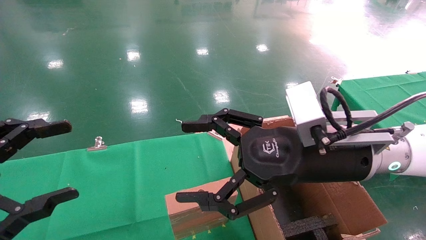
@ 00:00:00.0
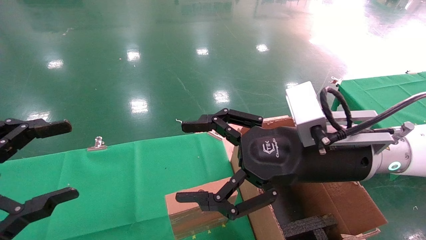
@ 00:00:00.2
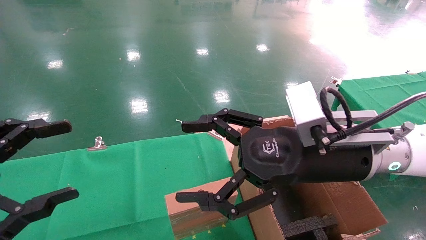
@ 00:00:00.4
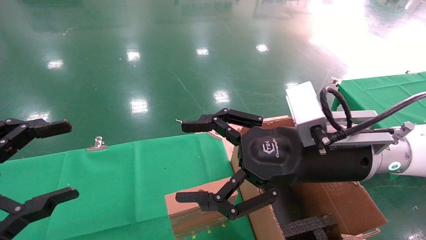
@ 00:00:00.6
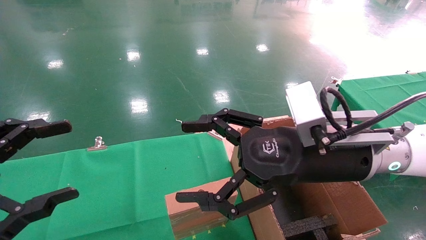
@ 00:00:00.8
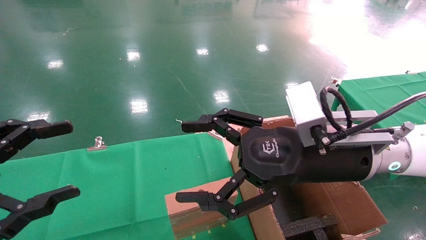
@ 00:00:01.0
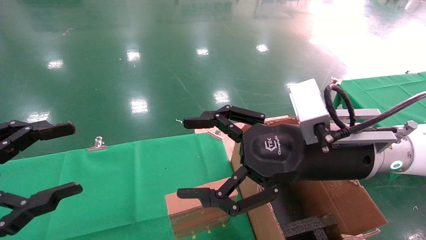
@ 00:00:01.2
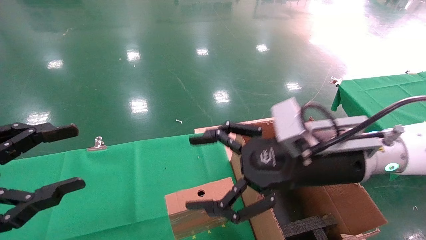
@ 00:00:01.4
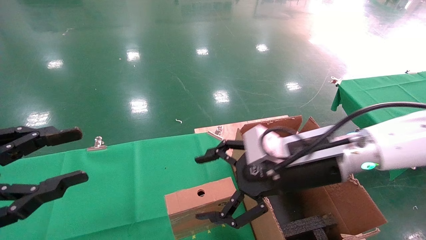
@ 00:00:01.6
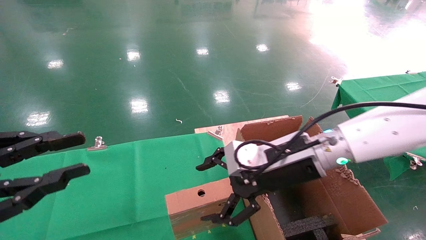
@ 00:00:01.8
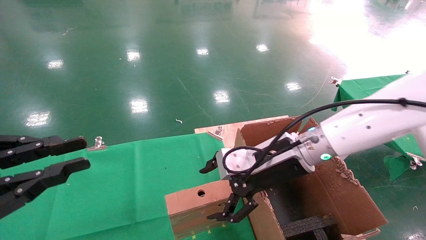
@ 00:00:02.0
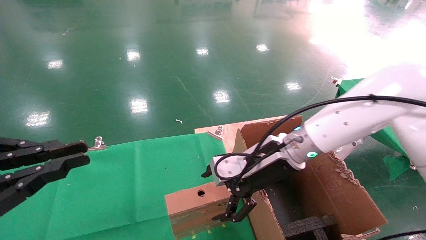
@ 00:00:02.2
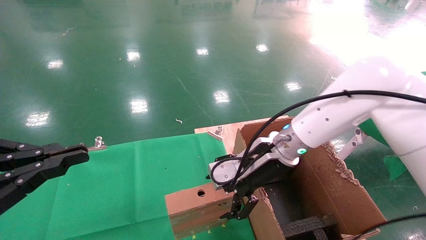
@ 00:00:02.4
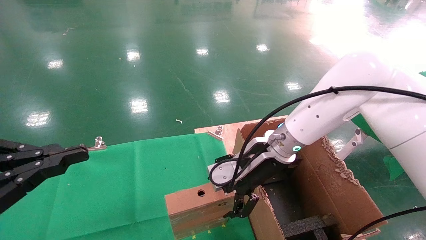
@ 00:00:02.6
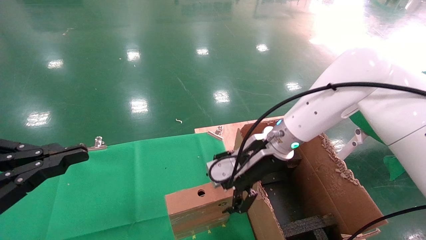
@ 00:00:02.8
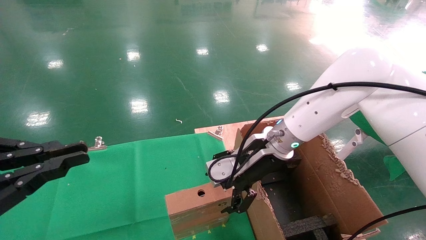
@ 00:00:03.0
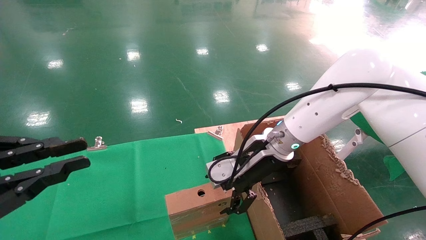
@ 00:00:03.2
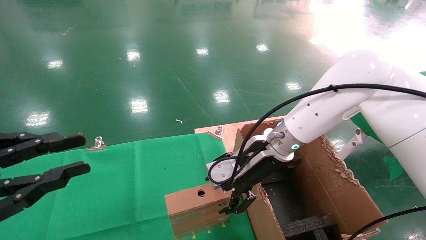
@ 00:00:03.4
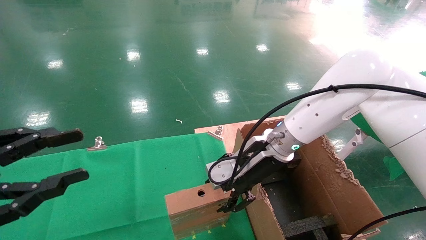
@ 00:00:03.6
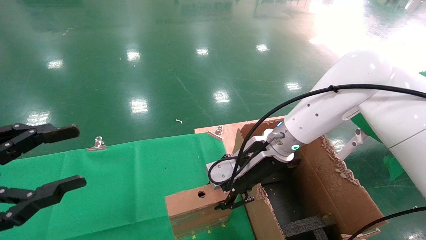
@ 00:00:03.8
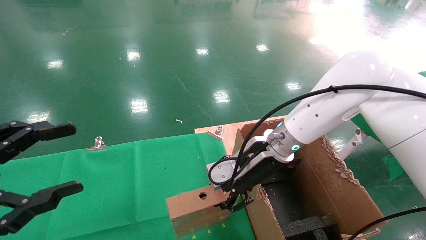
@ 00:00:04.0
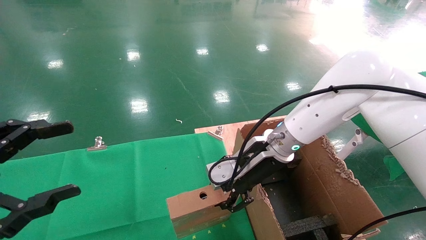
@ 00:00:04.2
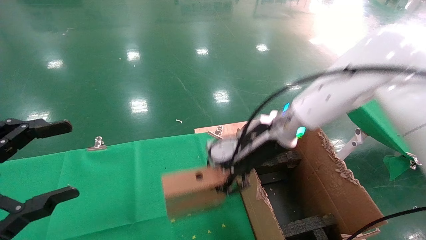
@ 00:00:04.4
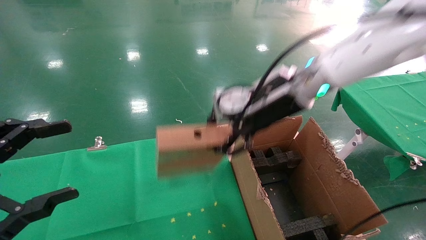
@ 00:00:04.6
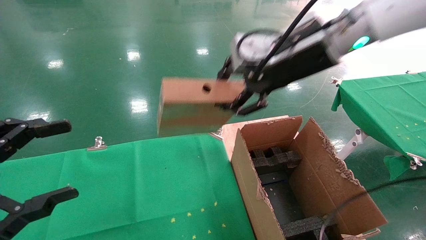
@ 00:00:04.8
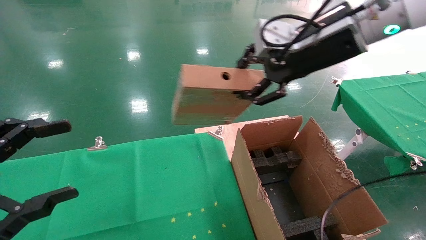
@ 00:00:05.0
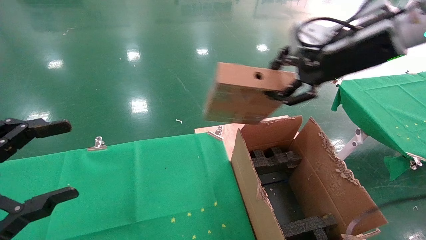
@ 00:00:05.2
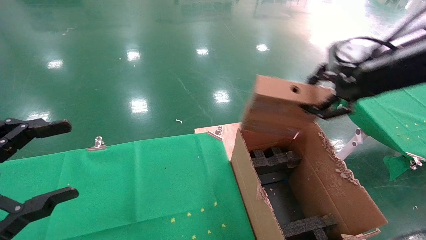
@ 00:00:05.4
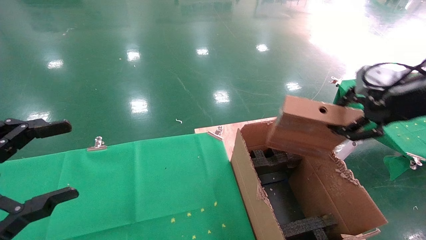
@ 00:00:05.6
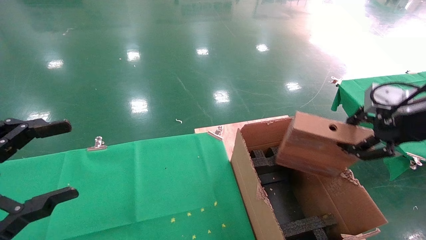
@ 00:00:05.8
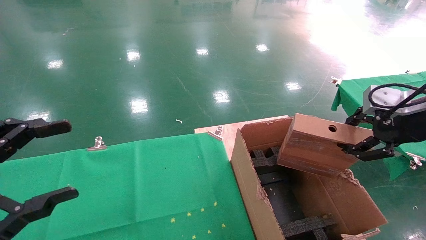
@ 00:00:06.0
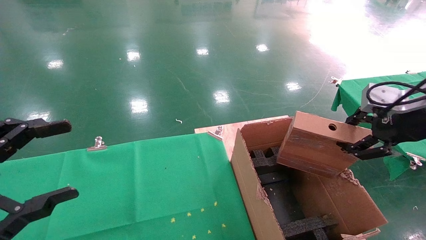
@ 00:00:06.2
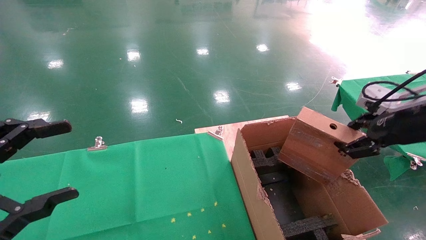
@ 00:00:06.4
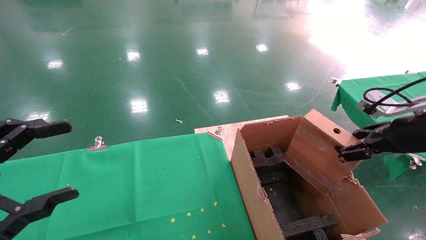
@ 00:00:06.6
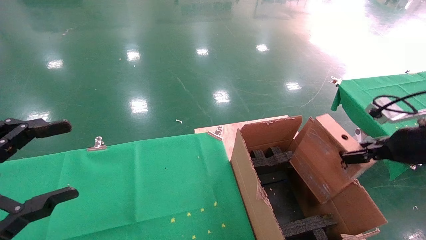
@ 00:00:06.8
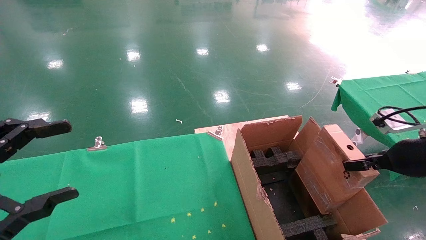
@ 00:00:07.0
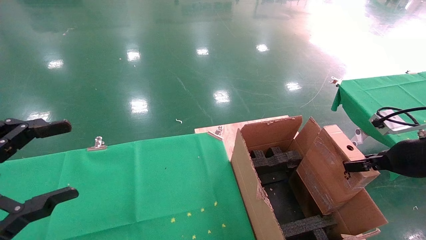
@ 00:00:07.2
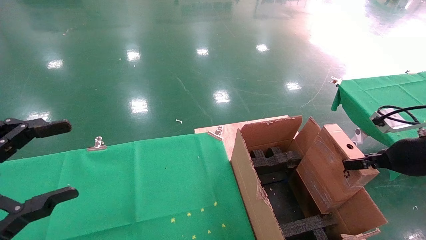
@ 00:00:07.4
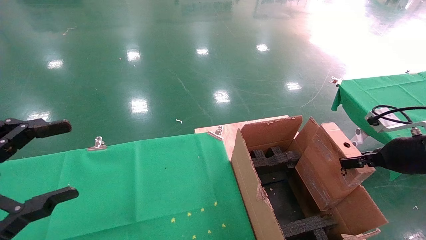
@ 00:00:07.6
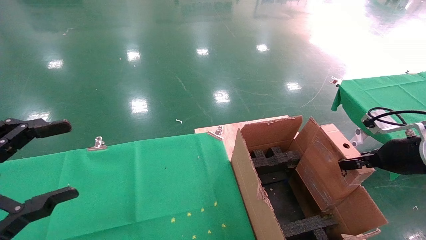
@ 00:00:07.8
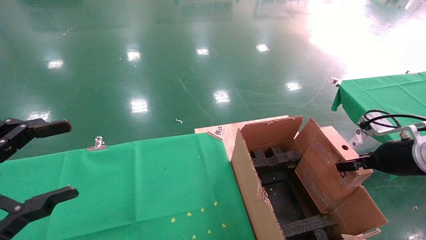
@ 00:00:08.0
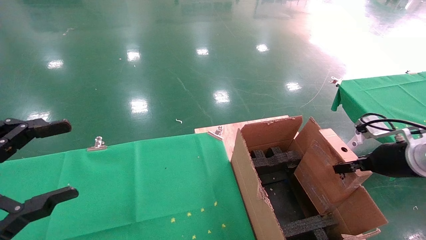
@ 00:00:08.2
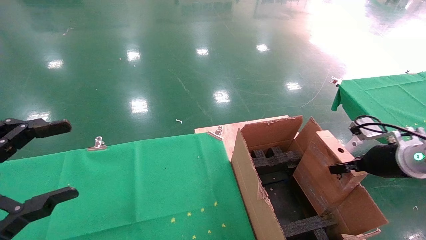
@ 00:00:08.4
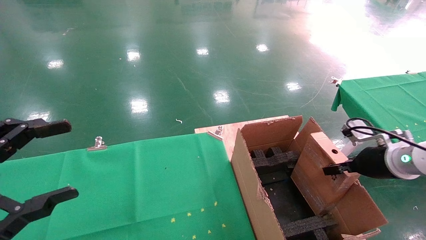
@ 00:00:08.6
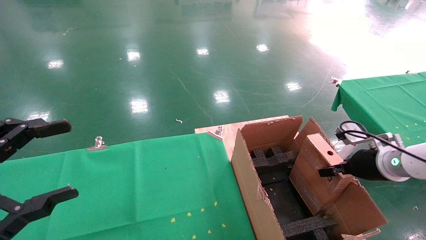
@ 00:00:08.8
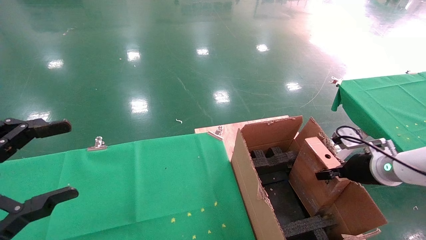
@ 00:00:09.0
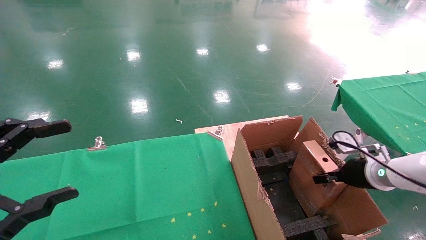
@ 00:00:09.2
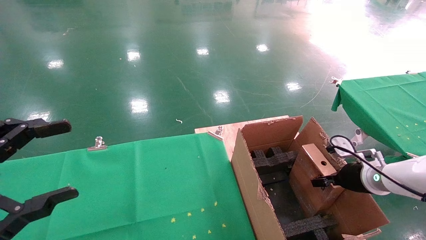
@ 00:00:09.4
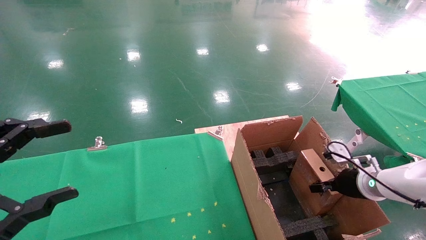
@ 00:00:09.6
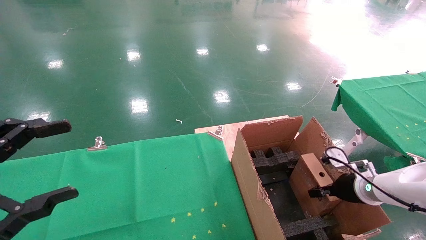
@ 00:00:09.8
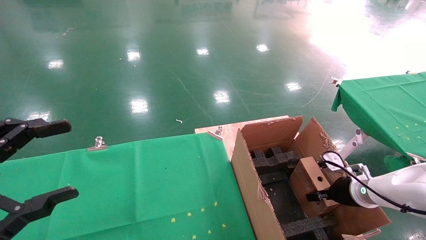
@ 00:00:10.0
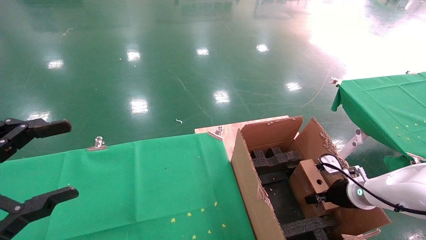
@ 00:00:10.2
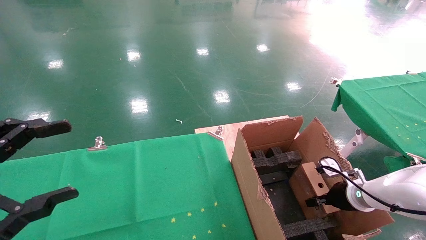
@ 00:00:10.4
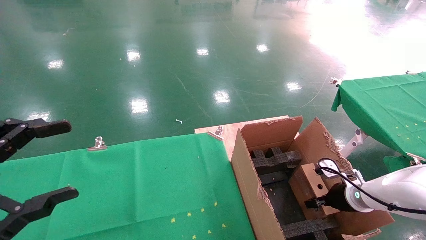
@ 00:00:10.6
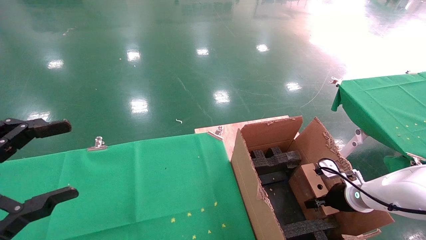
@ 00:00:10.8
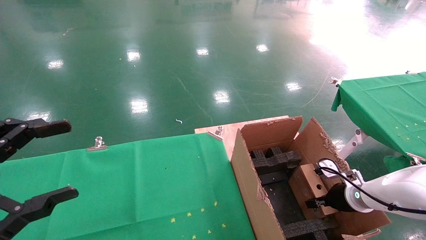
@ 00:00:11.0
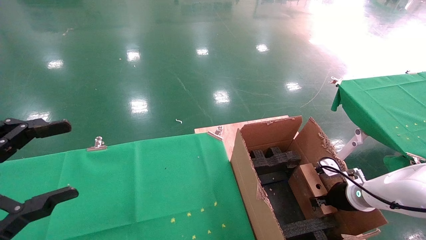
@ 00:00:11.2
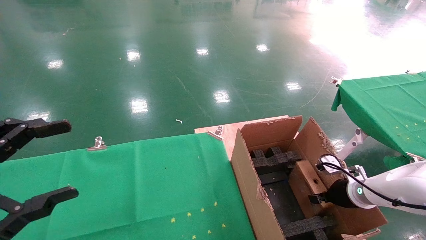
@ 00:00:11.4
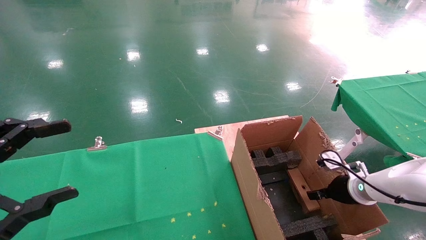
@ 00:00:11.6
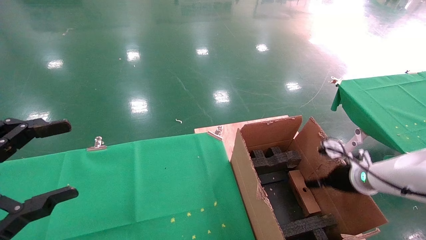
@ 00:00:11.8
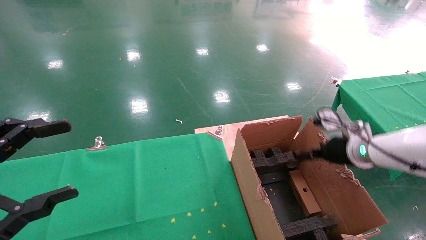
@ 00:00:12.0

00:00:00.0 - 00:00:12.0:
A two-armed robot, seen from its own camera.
Task of the whole recording: using a robotic arm to pick up a cardboard box and palace it the carton.
Step, 00:00:01.4 - 00:00:04.0: Pick up the mouse and the power cord paper box.
Step, 00:00:04.2 - 00:00:11.4: Place the mouse and the power cord paper box into the container.
00:00:00.0 - 00:00:01.6: The left gripper closes.
00:00:01.6 - 00:00:03.0: The right gripper heads forward, covering roughly 10 cm. Meanwhile the left gripper closes.
00:00:03.0 - 00:00:04.4: The right gripper heads upward, covering about 5 cm, and closes its fingers. Meanwhile the left gripper opens its fingers.
00:00:04.4 - 00:00:06.0: The right gripper is displaced to the right and backward by approximately 30 cm.
00:00:06.0 - 00:00:07.6: The right gripper is displaced downward by about 10 cm.
00:00:07.6 - 00:00:09.0: The right gripper is displaced downward and forward by approximately 10 cm.
00:00:09.0 - 00:00:10.4: The right gripper is displaced downward by some 10 cm.
00:00:10.4 - 00:00:12.0: The right gripper is displaced upward by some 15 cm, and opens.

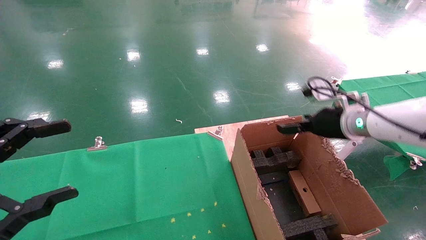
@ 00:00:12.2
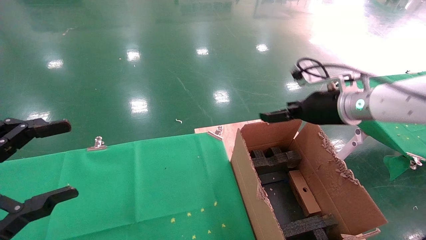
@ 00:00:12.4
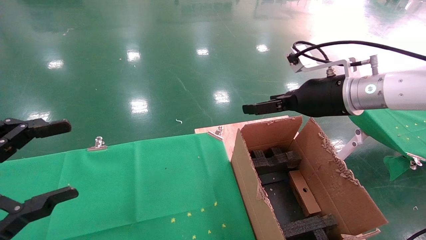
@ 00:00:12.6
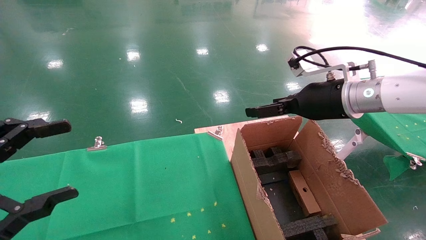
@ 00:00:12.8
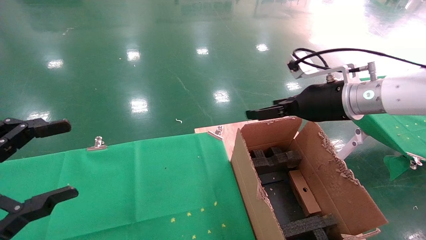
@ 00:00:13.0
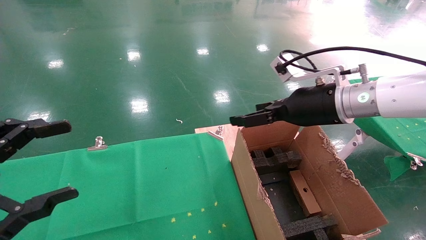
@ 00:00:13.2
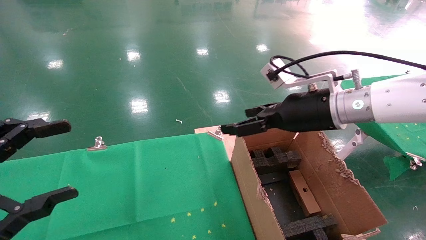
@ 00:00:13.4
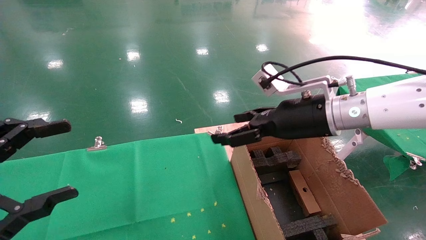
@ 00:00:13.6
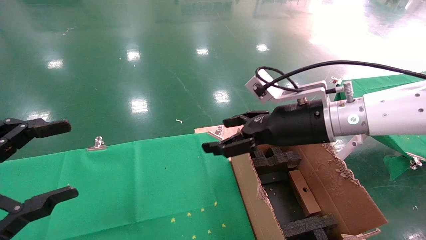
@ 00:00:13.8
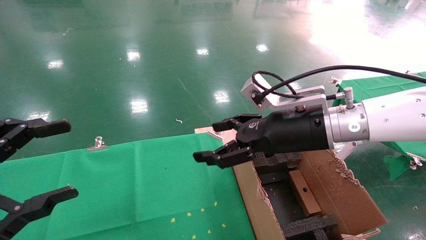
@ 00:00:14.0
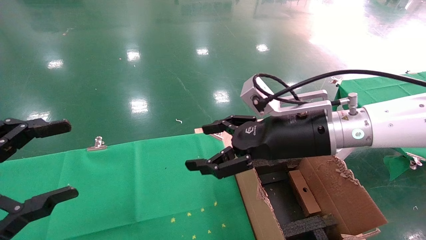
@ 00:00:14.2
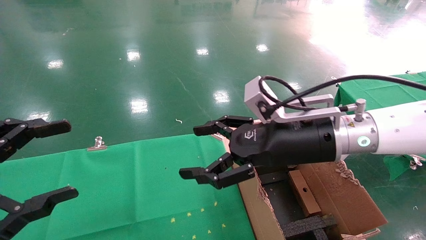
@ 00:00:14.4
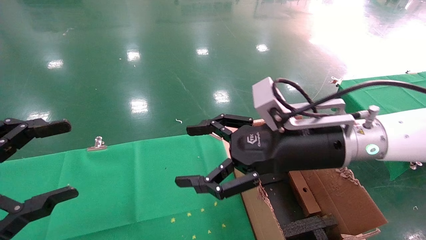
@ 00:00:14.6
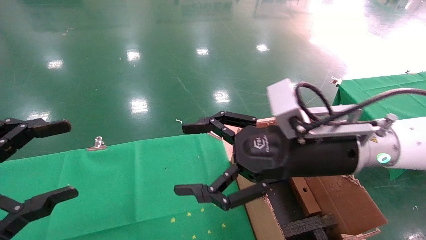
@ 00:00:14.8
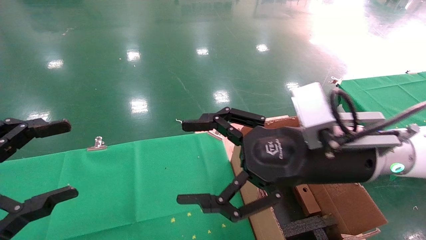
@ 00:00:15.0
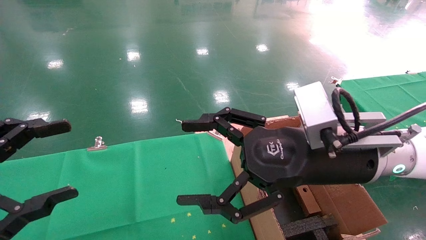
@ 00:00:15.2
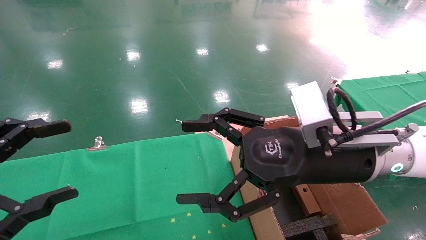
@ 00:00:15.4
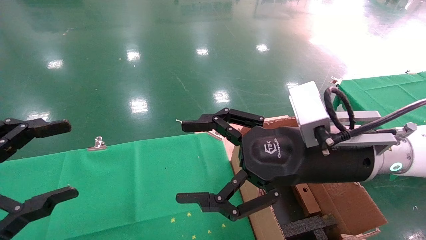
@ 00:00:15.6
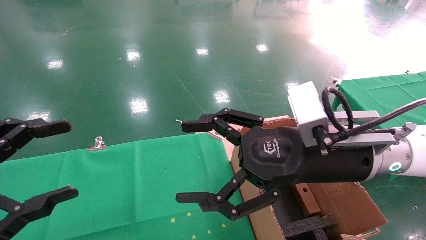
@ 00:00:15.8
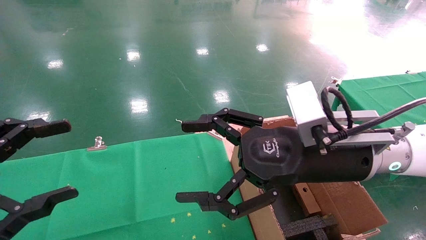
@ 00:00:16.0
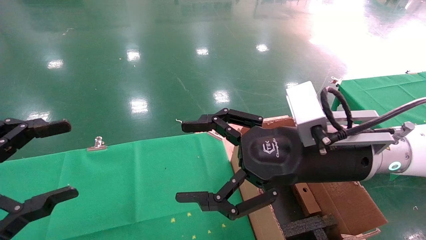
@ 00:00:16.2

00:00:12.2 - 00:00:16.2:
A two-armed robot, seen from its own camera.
Task of the whole recording: using a robotic arm to pick up a cardboard box and palace it the carton.
00:00:12.2 - 00:00:13.6: The right gripper is displaced to the left by roughly 10 cm.
00:00:13.6 - 00:00:14.8: The right gripper is displaced backward by roughly 5 cm.
00:00:14.8 - 00:00:16.2: The grippers move only a little.
